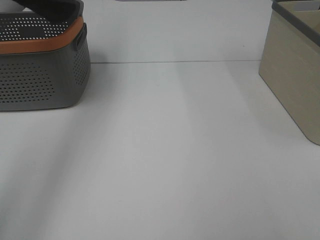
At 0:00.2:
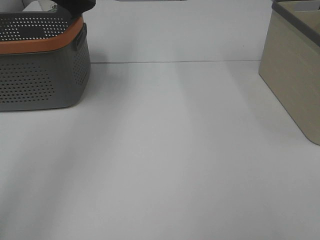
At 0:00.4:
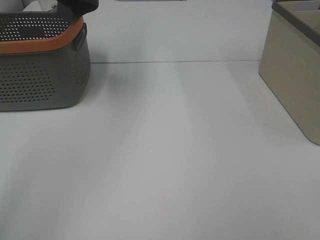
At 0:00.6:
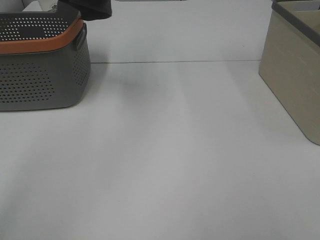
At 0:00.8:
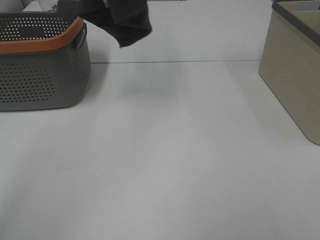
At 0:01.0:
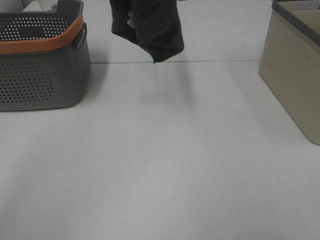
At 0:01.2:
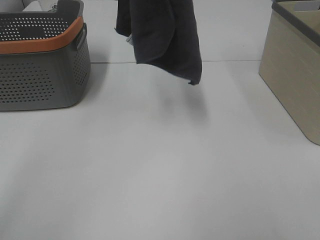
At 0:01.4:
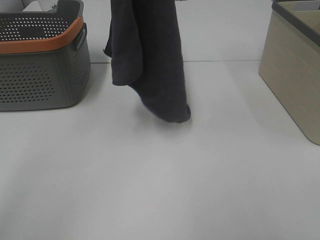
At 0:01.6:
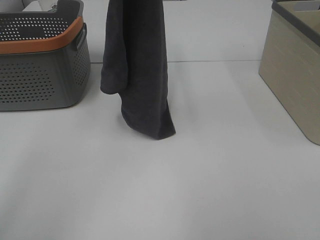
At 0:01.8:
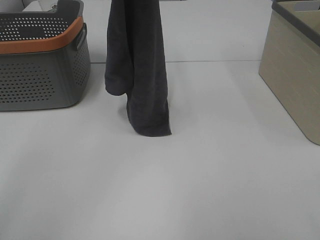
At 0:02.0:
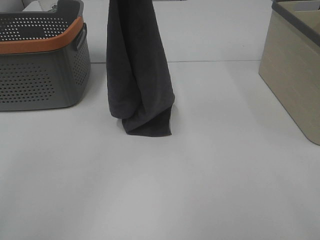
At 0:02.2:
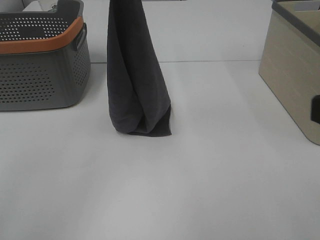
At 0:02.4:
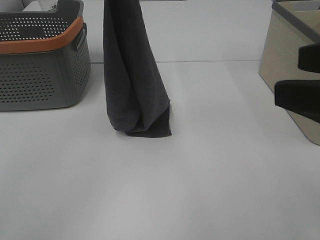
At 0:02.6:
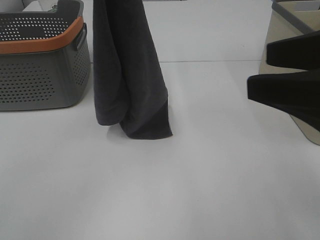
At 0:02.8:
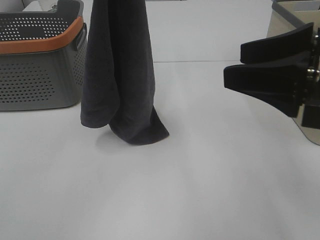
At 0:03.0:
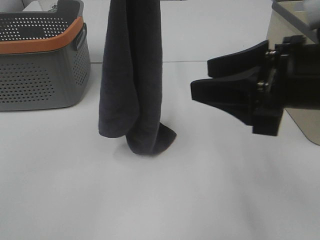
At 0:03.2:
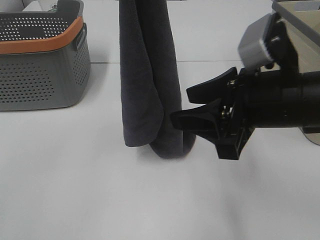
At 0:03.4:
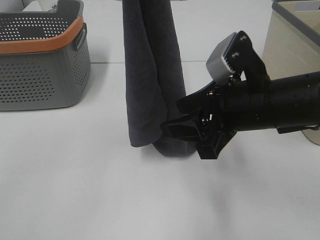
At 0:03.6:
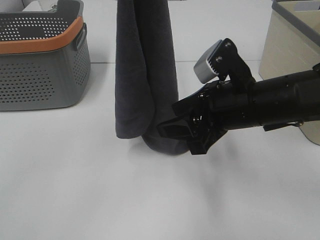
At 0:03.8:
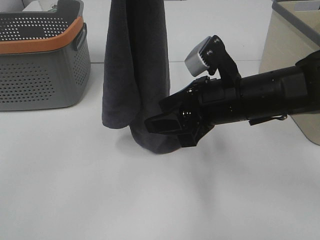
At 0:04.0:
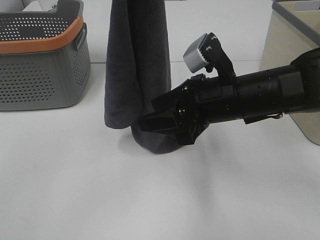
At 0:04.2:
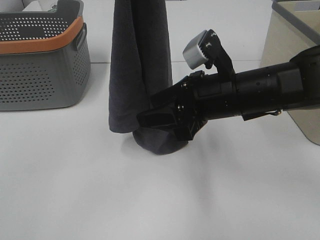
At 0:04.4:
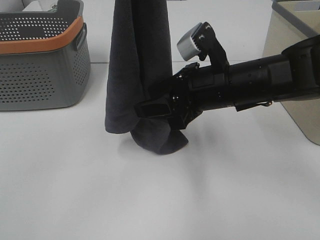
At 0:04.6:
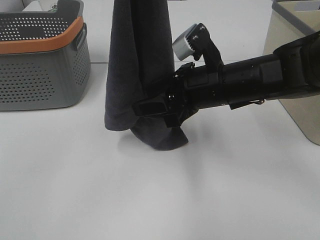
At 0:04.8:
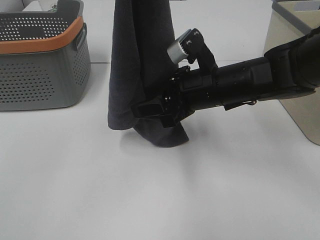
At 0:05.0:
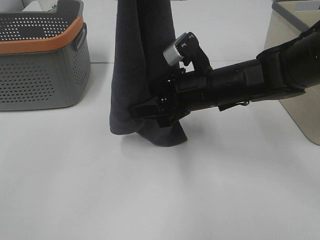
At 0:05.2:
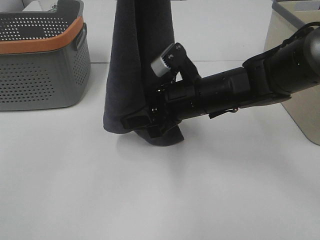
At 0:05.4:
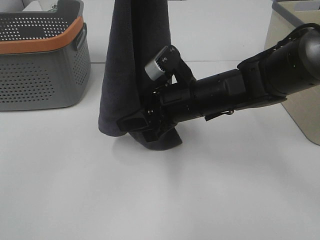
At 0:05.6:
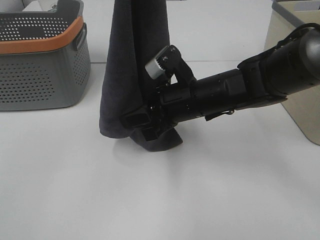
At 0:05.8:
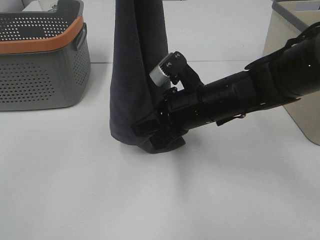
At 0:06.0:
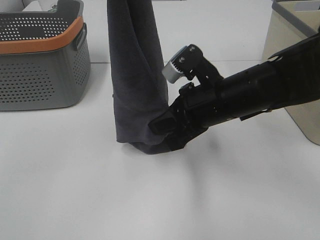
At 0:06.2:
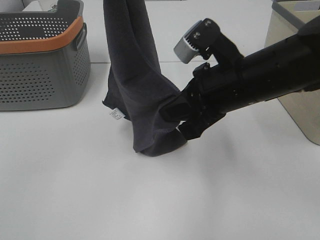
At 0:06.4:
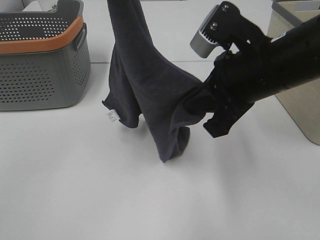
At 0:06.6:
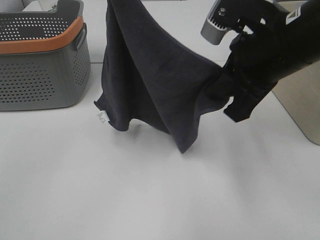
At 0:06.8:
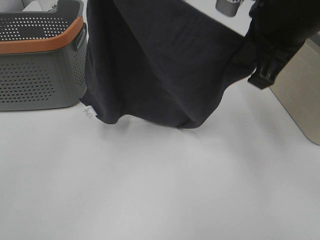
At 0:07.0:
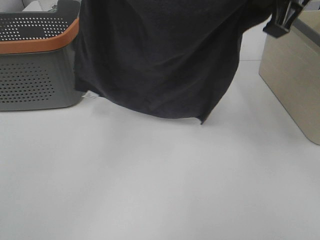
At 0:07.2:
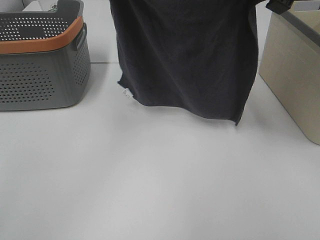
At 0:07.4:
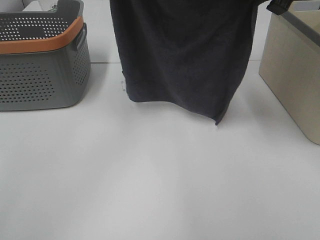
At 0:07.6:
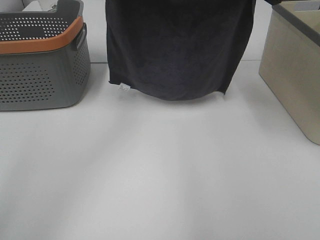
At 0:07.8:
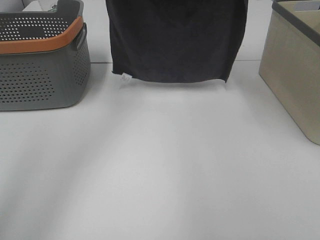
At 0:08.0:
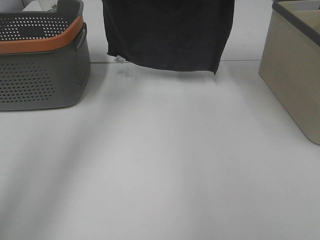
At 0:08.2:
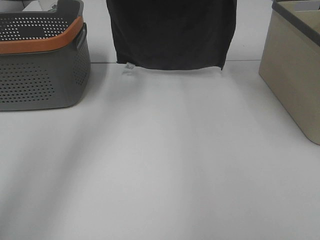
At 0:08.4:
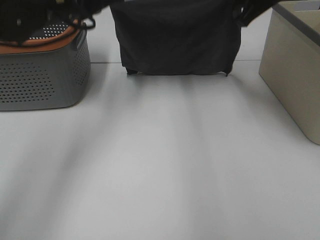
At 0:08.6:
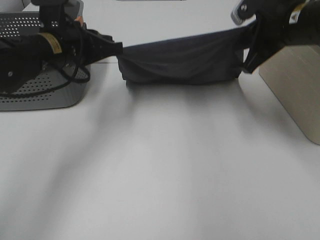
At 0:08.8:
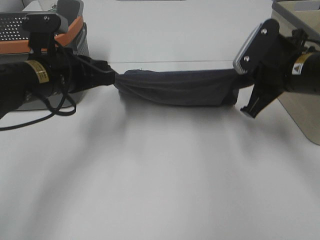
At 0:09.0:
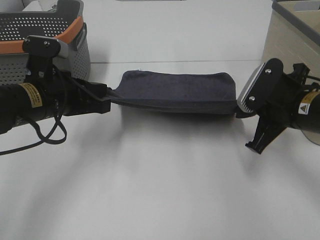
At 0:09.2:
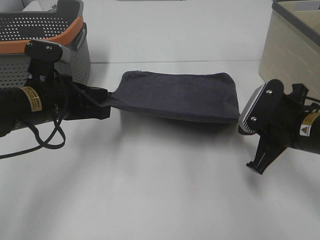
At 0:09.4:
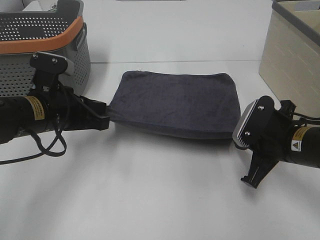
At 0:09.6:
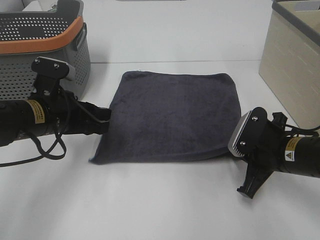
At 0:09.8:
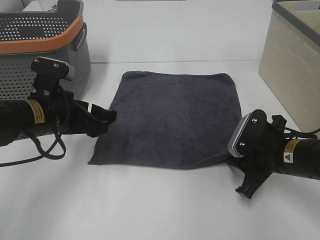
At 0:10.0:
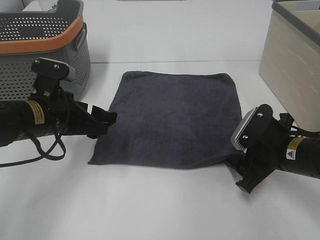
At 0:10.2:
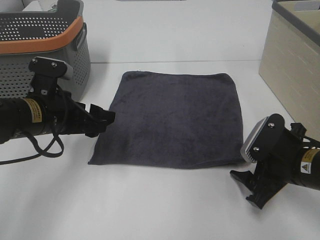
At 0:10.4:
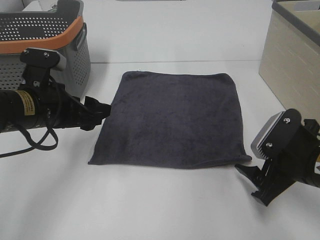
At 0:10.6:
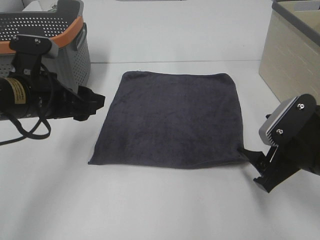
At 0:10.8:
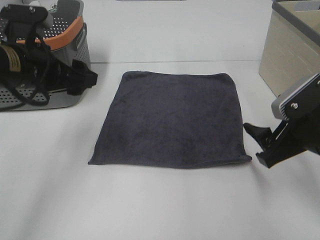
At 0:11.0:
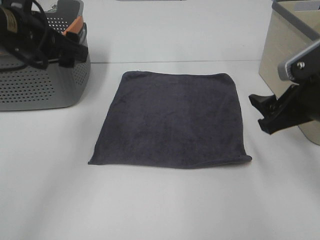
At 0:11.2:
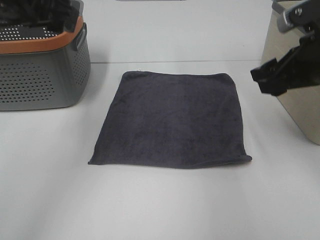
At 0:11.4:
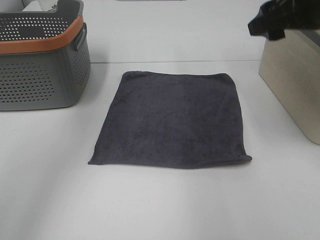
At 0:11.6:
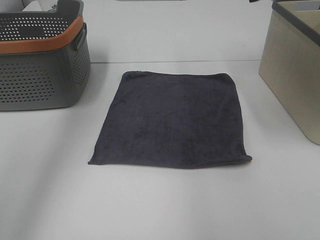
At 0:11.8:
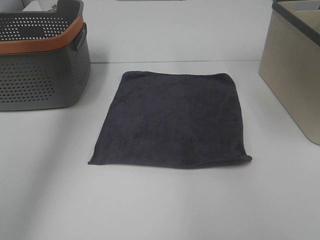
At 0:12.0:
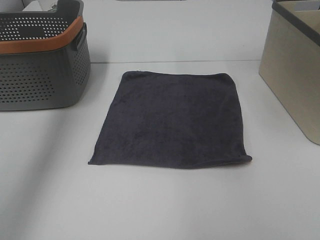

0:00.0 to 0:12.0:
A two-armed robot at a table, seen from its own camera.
Task of the whole recording: Remove the towel and place it.
Step, 0:00.8 to 0:04.4: Right hand: grab a corner of the grey towel and straighten it.
Step, 0:04.6 to 0:06.4: Right hand: spread the grey towel flat on the table.
0:00.0 to 0:01.6: The left gripper is displaced to the right and downward by roughly 15 cm.
0:01.6 to 0:03.0: The left gripper goes some 10 cm backward. The right gripper travels forward and to the left by some 20 cm.
0:03.0 to 0:04.4: The right gripper moves forward, to the left and downward, some 15 cm.
0:04.4 to 0:06.0: The right gripper closes.
0:06.0 to 0:07.6: The left gripper goes some 10 cm forward and downward, while the right gripper is displaced upward, to the right and forward by roughly 25 cm.
0:07.6 to 0:09.0: Both grippers travel together downward and backward, some 25 cm.
0:09.0 to 0:10.4: The right gripper moves backward, about 5 cm, and opens its fingers; the left gripper opens up.
0:10.4 to 0:12.0: The left gripper moves upward, roughly 30 cm; the right gripper moves upward and forward, some 35 cm.

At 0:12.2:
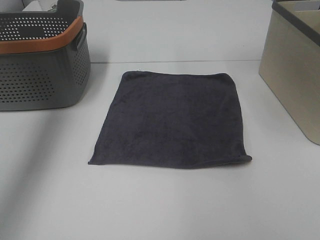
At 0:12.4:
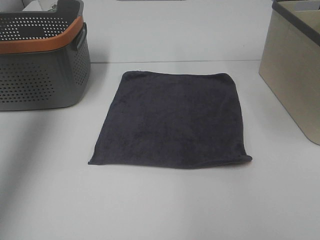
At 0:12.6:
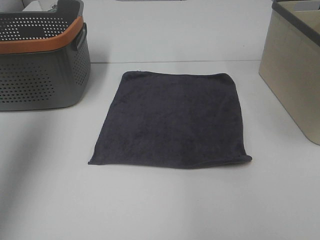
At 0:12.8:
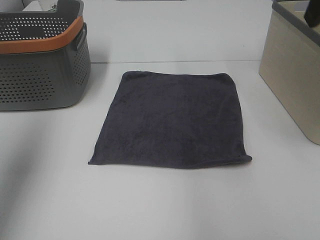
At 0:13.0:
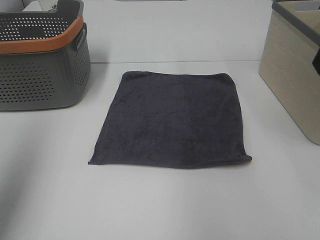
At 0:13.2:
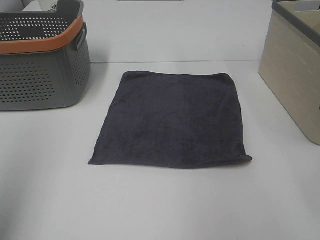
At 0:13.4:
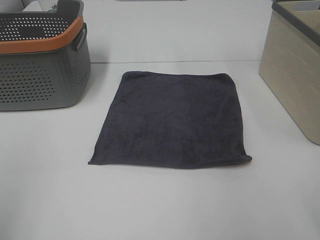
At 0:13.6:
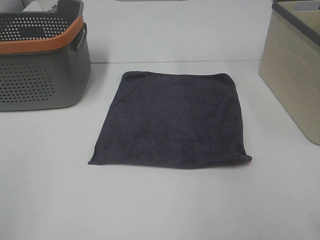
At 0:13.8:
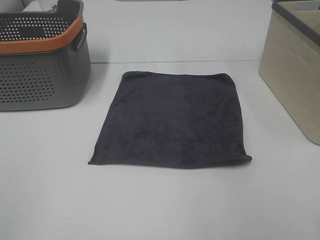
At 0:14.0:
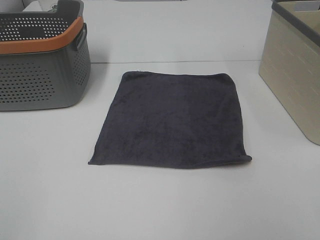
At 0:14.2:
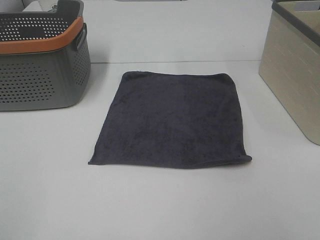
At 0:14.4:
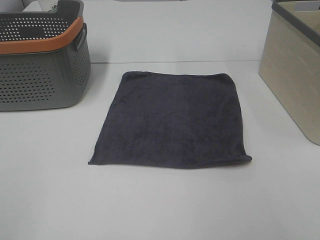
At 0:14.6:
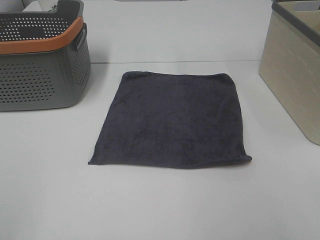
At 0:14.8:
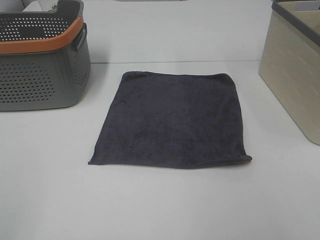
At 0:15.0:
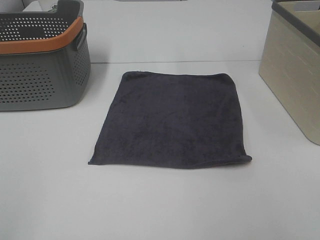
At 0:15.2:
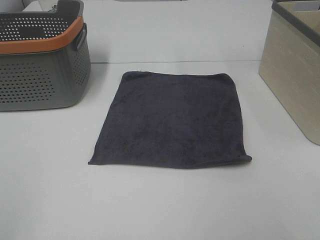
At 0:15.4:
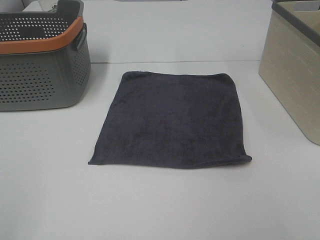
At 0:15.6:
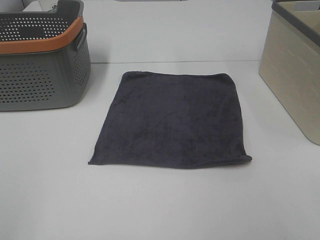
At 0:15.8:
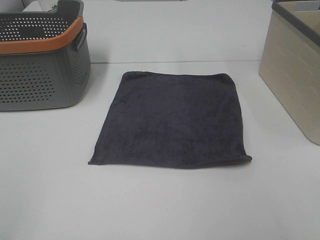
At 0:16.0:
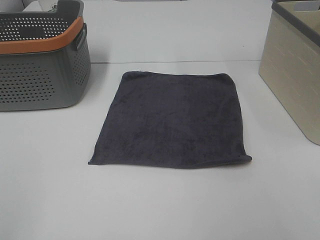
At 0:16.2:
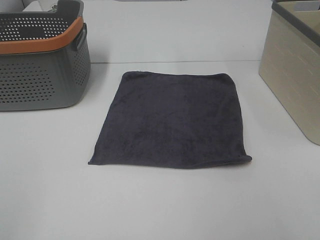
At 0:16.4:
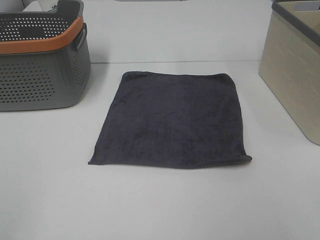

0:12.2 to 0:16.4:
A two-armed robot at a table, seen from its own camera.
Task of the whole recording: Remove the towel and place it.
0:12.2 to 0:13.6: The left gripper shifts about 35 cm backward and downward.
0:15.0 to 0:16.4: Both grippers stay about where they are.
